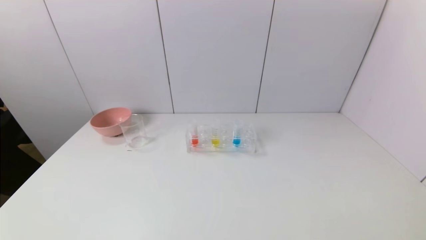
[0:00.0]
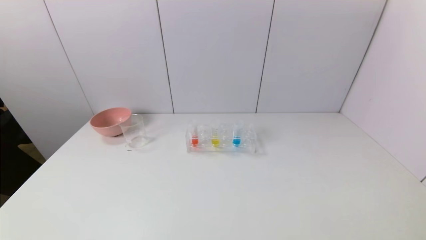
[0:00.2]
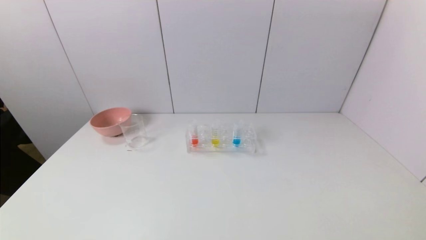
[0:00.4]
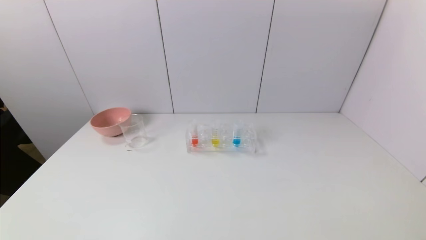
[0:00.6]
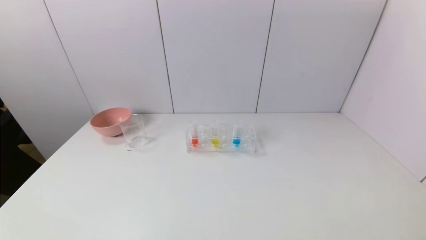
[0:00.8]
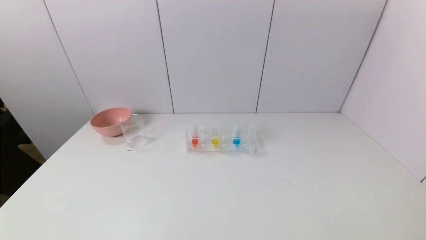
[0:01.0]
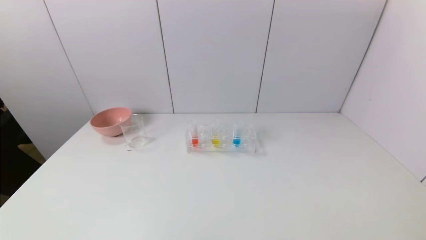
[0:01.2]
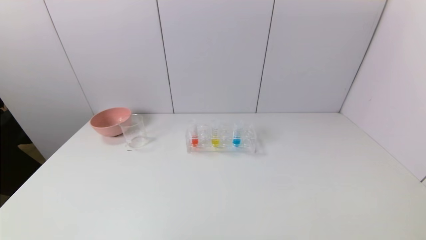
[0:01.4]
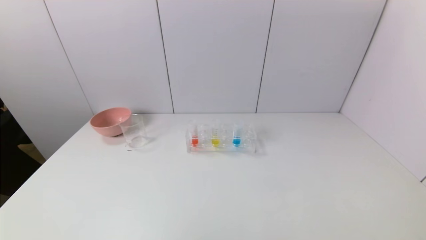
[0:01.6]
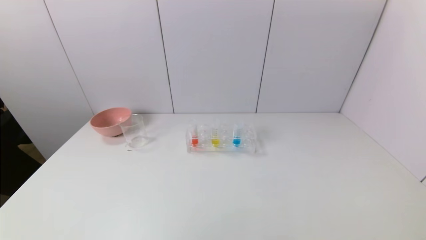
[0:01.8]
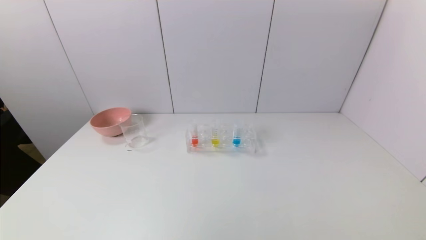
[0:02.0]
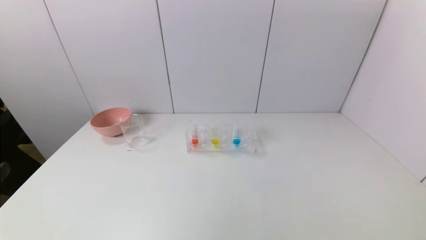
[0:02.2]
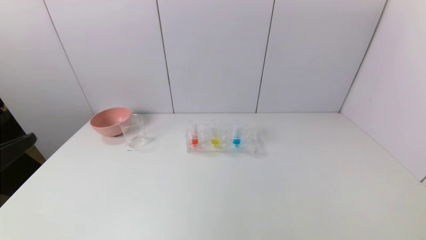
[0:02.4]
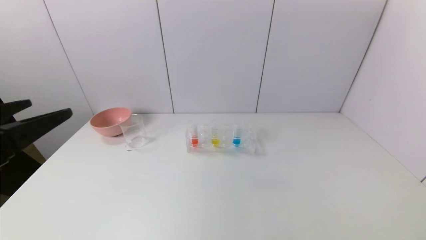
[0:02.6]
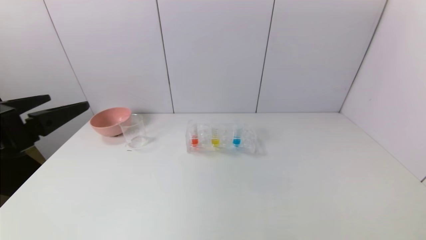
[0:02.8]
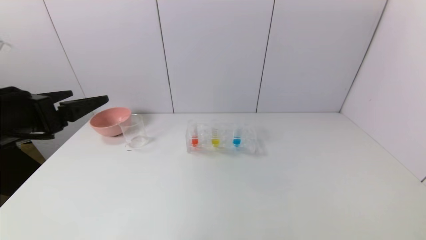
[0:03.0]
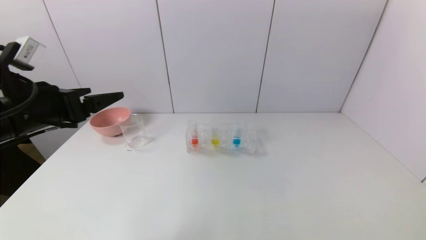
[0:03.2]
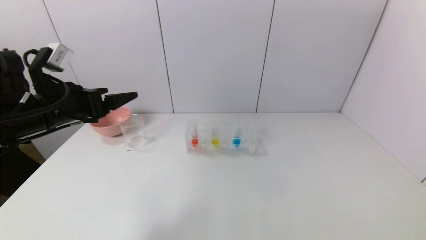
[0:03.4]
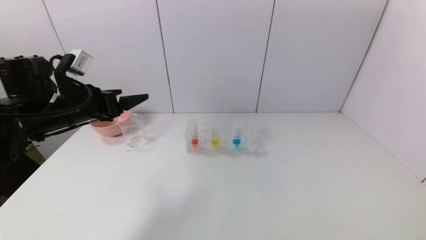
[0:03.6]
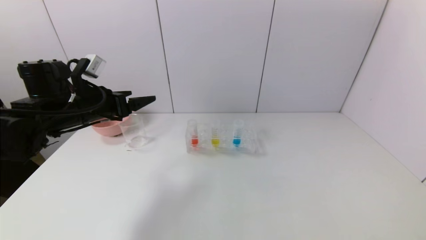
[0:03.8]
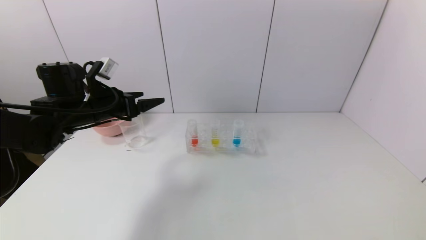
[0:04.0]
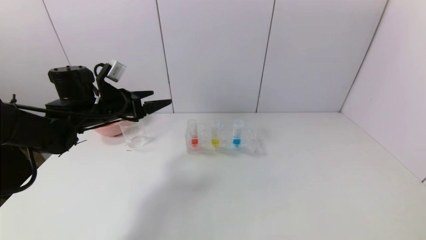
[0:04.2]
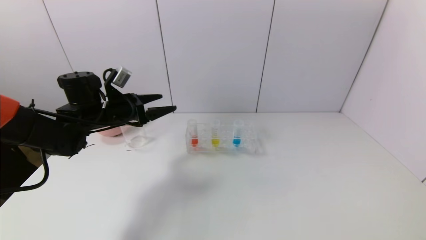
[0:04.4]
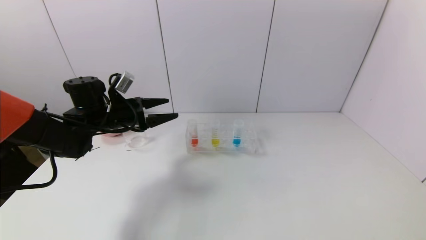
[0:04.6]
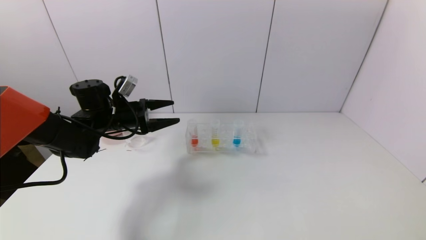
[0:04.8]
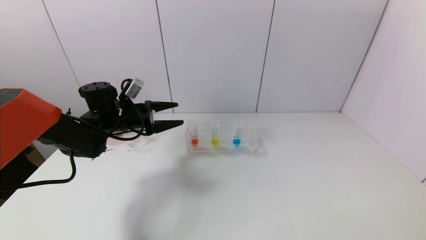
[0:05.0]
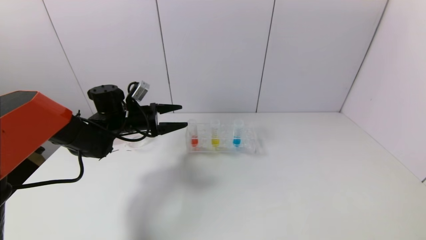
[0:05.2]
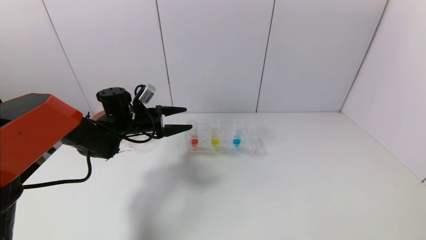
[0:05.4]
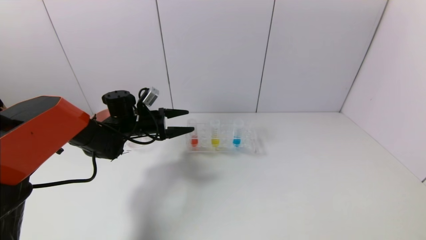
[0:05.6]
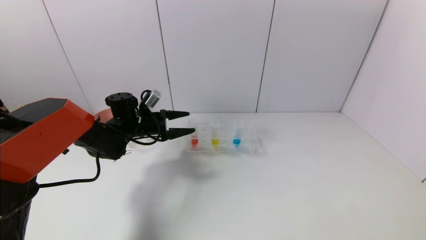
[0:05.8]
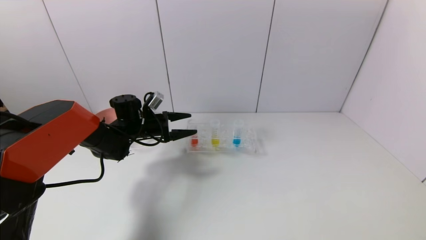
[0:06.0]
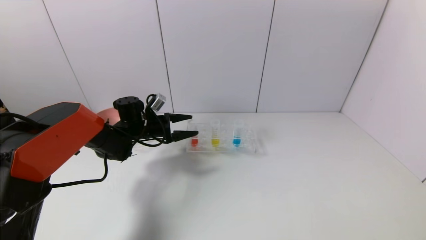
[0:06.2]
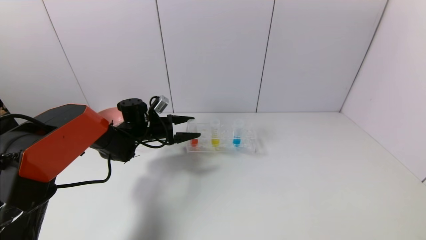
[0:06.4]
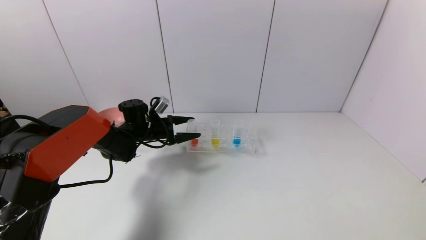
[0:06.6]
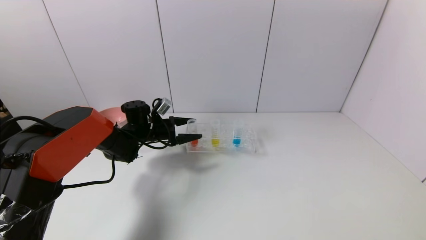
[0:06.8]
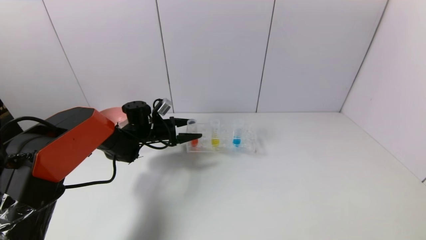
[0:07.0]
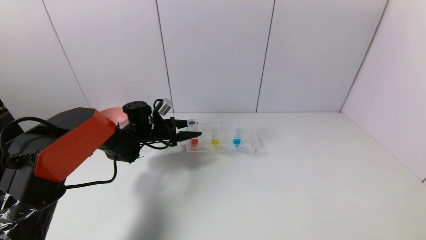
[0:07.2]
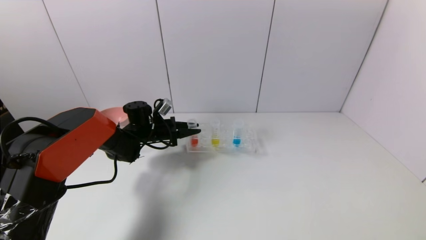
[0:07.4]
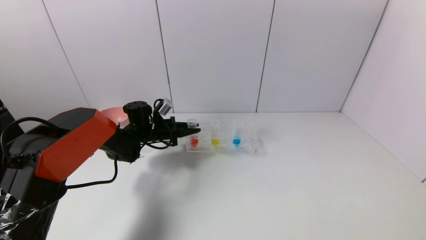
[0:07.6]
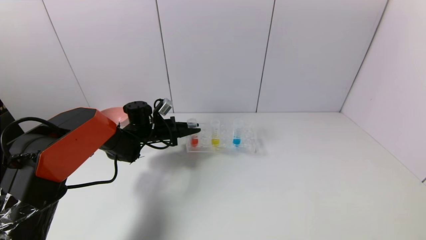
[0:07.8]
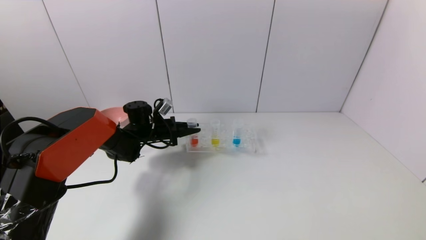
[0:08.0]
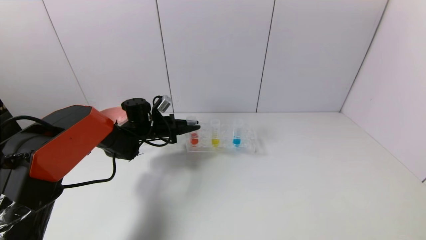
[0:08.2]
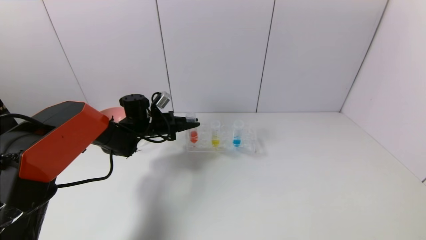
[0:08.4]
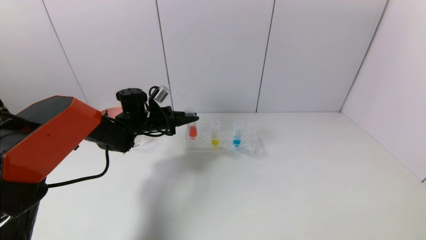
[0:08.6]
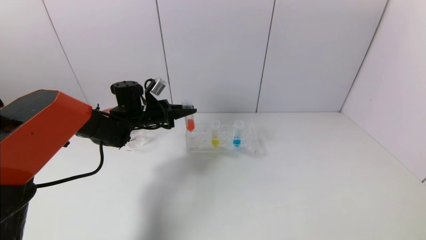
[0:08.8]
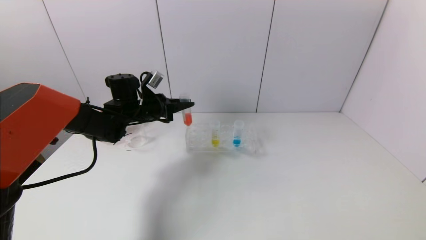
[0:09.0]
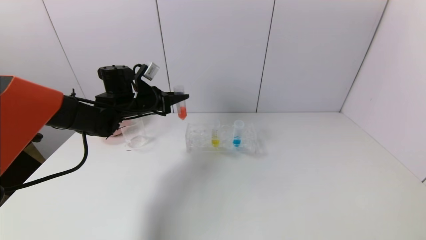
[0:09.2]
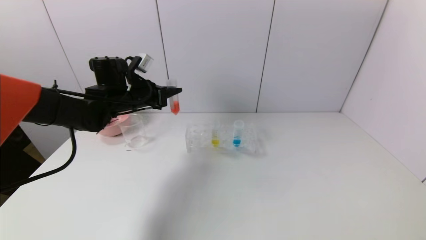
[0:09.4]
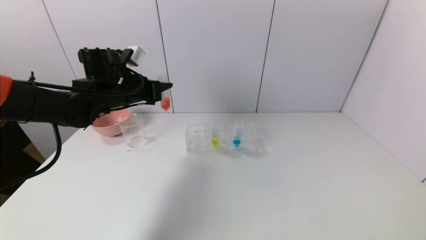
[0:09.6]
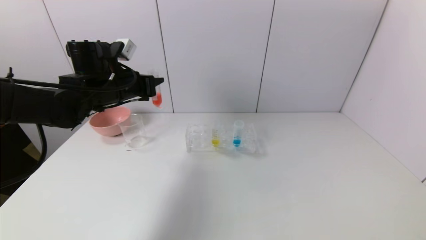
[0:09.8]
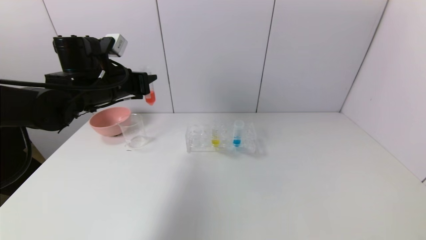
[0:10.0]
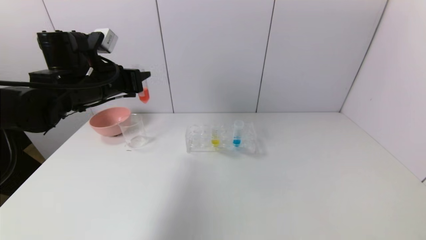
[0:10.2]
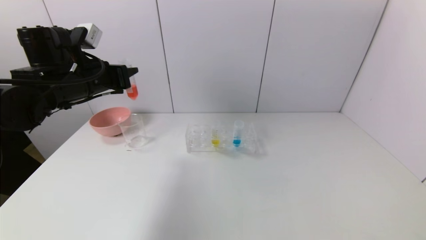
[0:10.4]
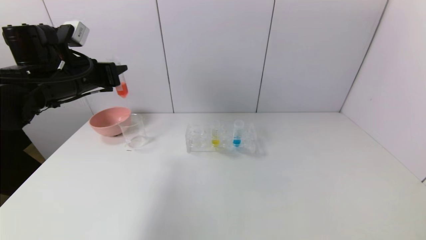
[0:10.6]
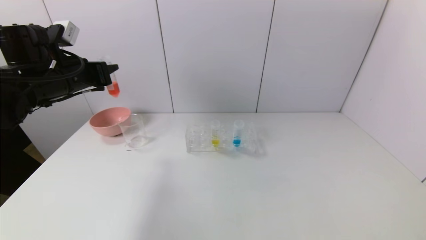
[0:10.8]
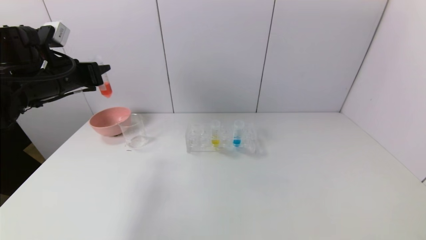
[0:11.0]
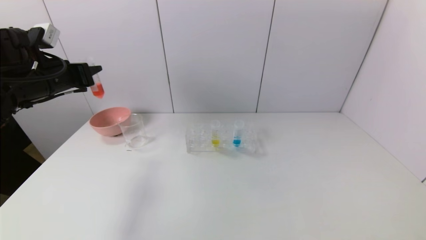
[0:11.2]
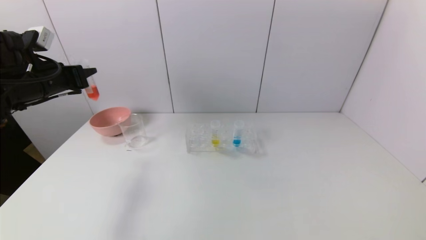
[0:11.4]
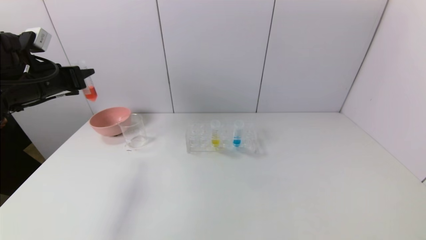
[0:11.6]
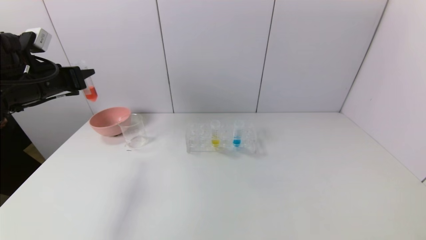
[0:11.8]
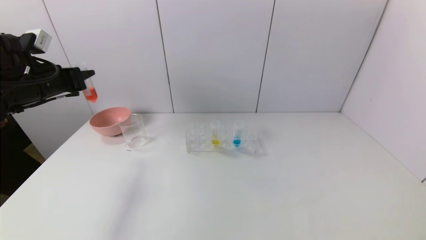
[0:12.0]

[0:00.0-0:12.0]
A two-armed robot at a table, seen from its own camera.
Task of the whole recording: pick up the test tube with red pigment and the test tube with blue pigment by grippers and pour them into the container.
Step, 0:00.0 to 0:07.6: Grasp the red reagent with the left gripper.
0:01.6 to 0:03.0: The left gripper is displaced forward by approximately 25 cm.
0:03.0 to 0:04.4: The left gripper travels forward and downward by approximately 20 cm.
0:04.4 to 0:06.0: The left gripper travels downward and forward by some 10 cm.
0:06.0 to 0:07.6: The left gripper closes.
0:07.6 to 0:09.0: The left gripper heads upward, covering approximately 10 cm.
0:09.0 to 0:10.4: The left gripper moves upward, backward and to the left, roughly 15 cm.
0:10.4 to 0:12.0: The left gripper shifts about 10 cm to the left.

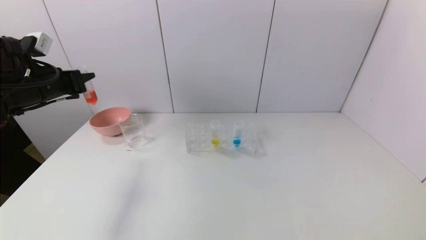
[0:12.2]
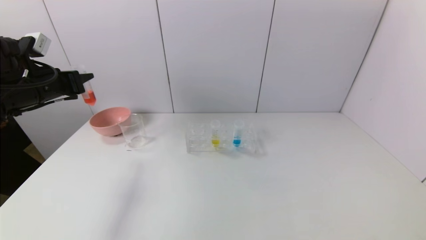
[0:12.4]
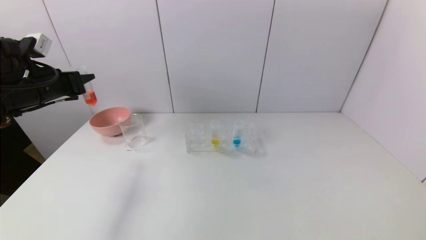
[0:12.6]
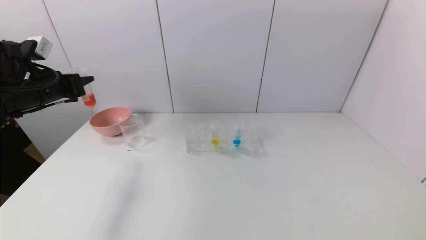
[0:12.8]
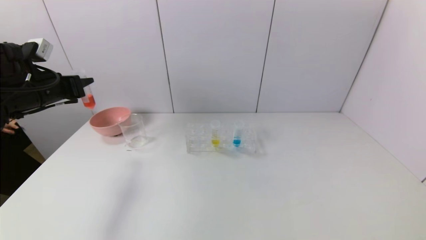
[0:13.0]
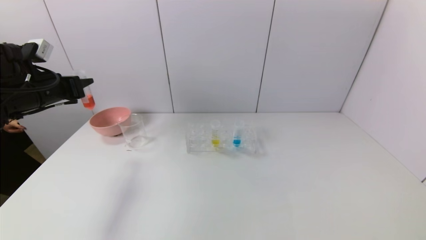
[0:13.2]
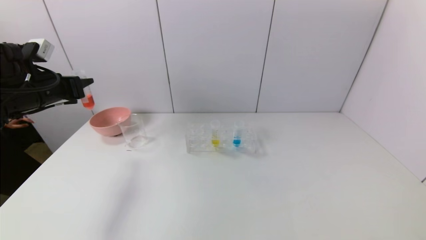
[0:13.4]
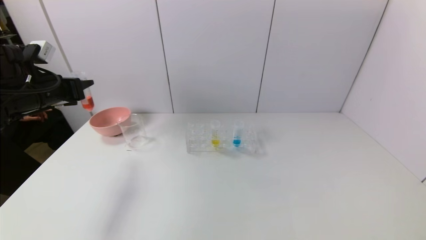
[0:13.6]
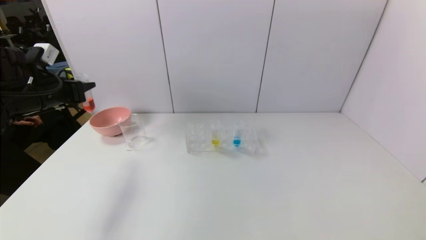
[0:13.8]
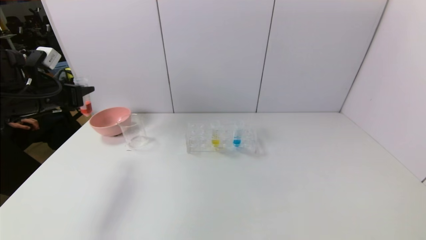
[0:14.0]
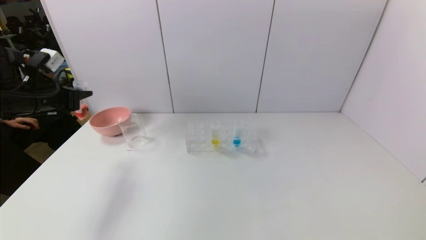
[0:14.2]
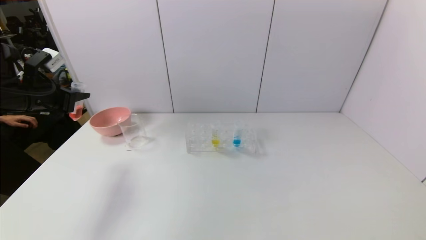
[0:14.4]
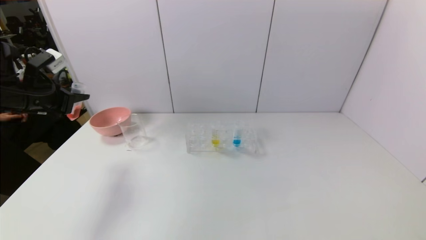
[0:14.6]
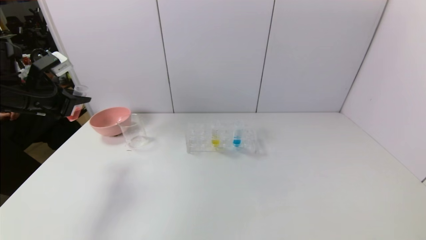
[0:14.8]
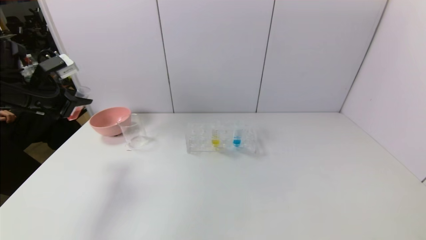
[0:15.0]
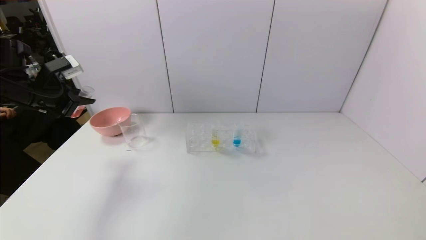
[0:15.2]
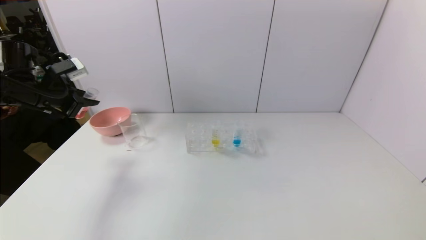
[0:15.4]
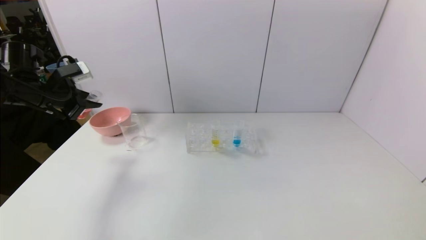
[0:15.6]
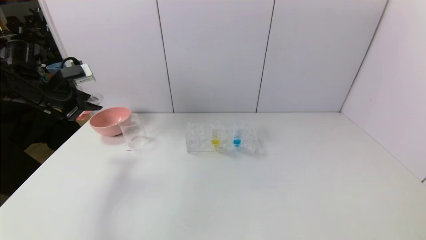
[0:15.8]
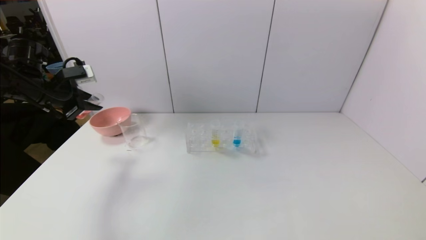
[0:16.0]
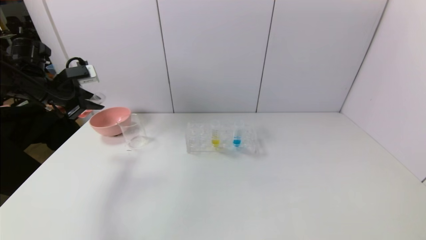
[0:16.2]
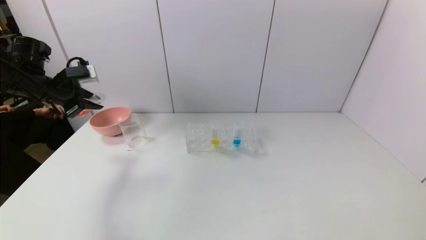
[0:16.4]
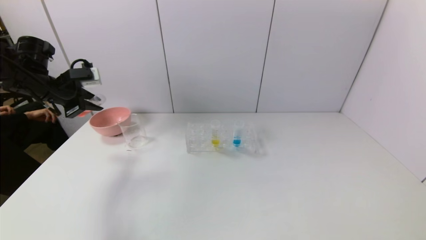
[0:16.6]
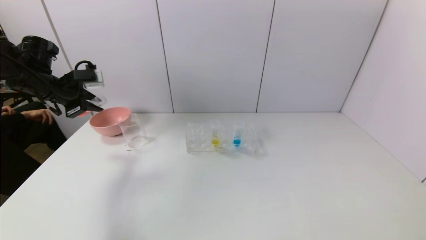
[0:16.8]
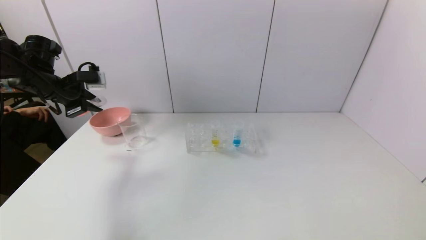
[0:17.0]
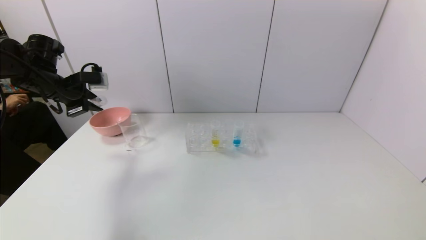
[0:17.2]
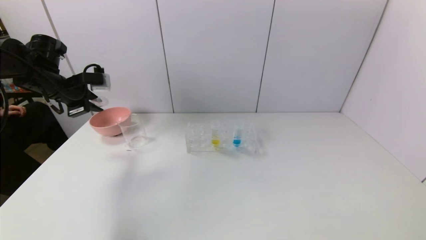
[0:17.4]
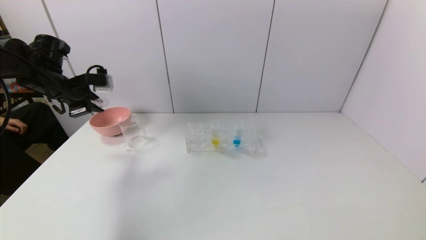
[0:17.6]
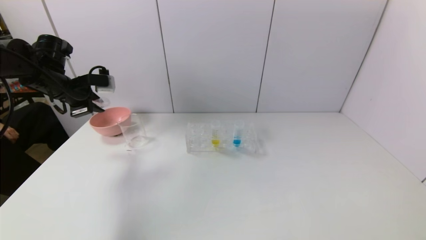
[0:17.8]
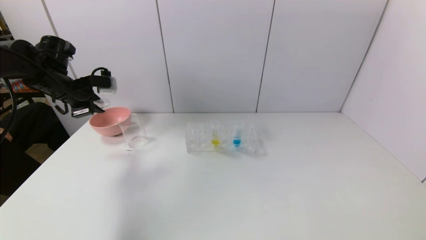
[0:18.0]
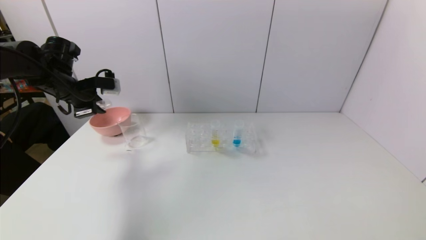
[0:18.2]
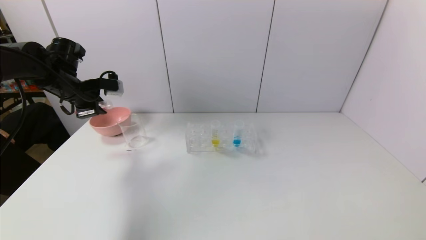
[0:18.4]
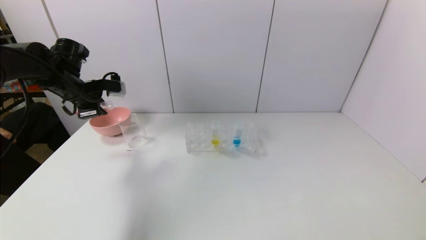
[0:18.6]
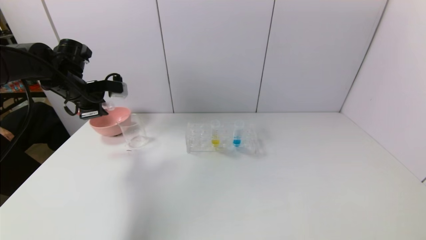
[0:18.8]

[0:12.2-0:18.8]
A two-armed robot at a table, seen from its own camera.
Task of the whole recording: pick up the test tube with red pigment and the test tube with blue pigment by grippers and pour them into the container.
0:12.2 to 0:13.8: The grippers move only a little.
0:17.2 to 0:18.8: There are only small adjustments of the grippers.
